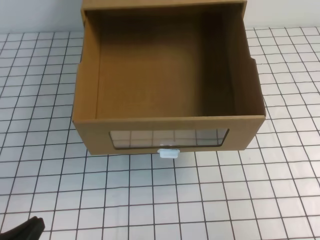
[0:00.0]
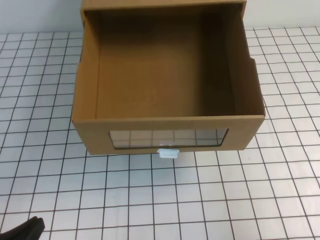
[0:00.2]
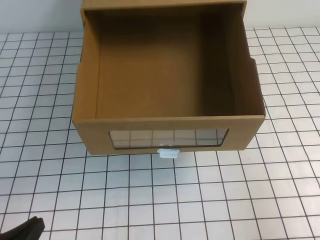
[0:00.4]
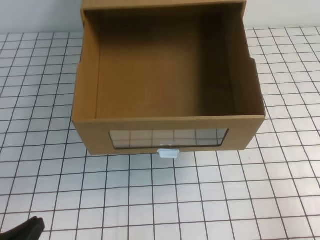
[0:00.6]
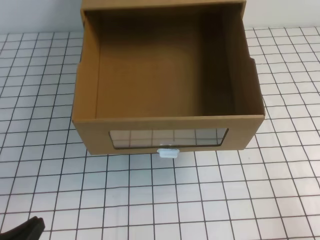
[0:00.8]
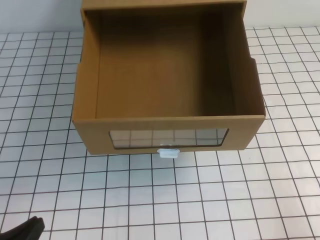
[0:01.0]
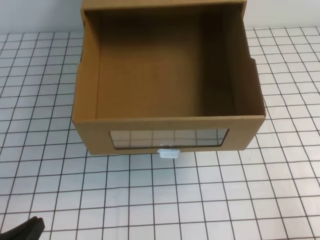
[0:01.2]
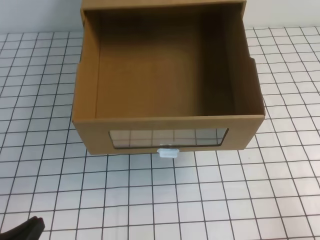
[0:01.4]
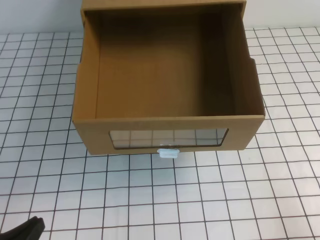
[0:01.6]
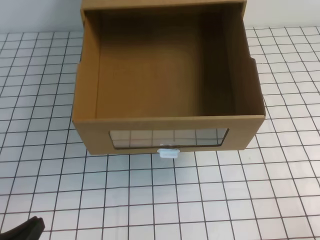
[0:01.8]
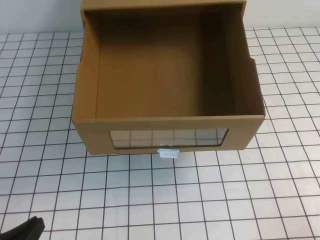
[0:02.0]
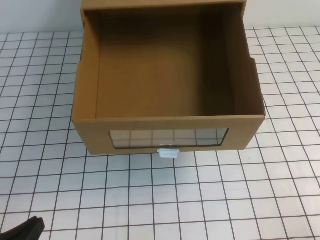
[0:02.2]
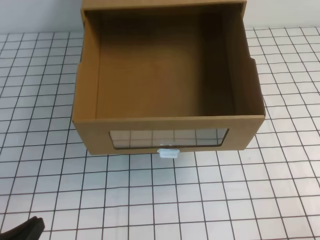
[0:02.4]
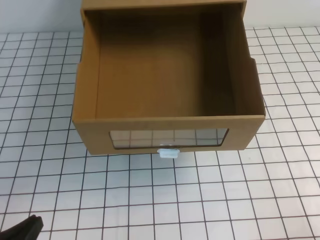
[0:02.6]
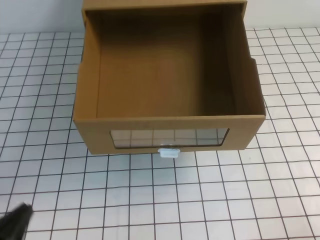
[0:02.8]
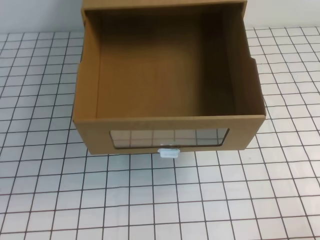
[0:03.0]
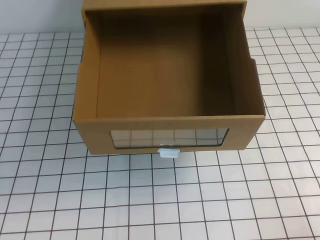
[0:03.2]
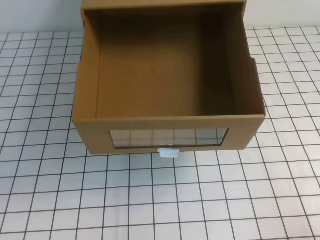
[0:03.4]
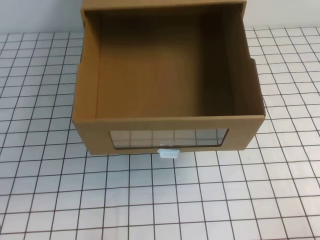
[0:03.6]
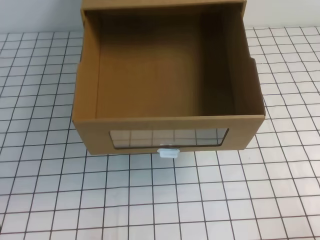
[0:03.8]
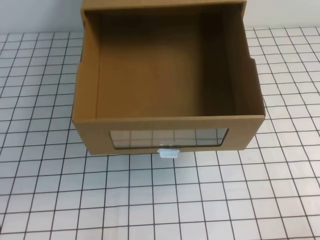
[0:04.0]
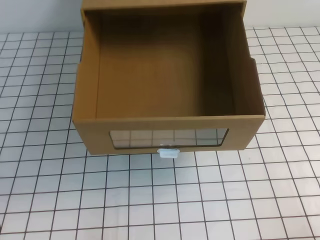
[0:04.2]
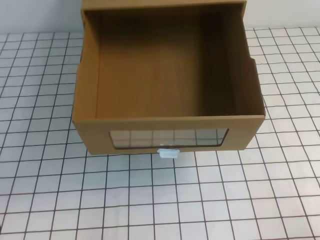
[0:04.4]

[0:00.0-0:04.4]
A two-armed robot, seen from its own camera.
Task of the whole recording: open the shoebox on the white tablecloth.
Step, 0:00.0 to 0:04.4: Open the shoe box.
0:00.0 to 0:01.4: The right gripper heads downward and backward, covering roughly 15 cm.

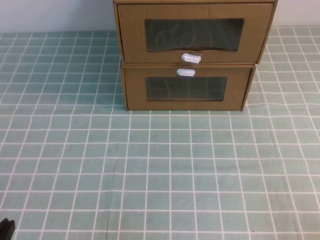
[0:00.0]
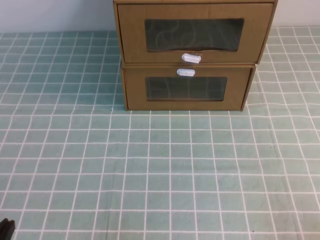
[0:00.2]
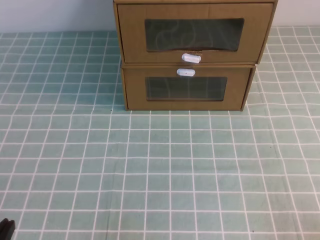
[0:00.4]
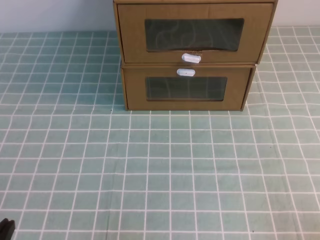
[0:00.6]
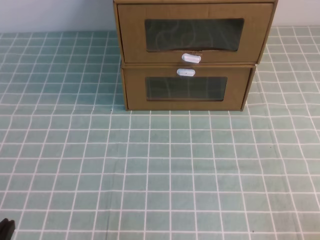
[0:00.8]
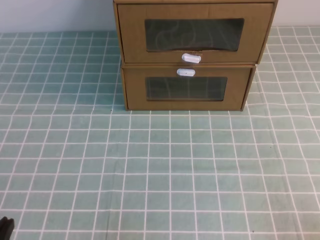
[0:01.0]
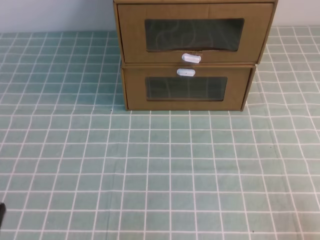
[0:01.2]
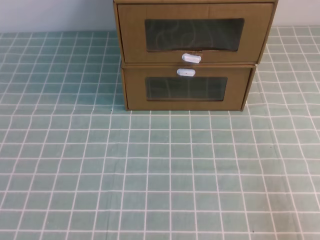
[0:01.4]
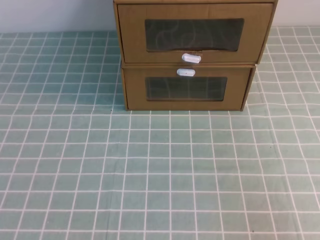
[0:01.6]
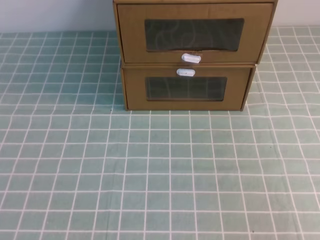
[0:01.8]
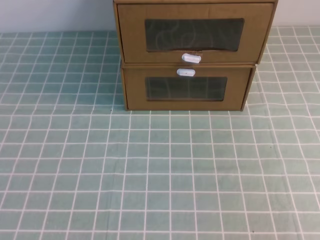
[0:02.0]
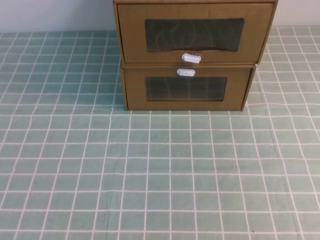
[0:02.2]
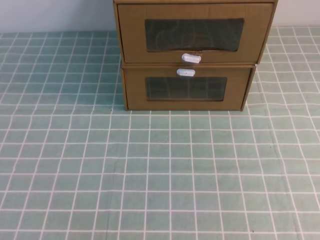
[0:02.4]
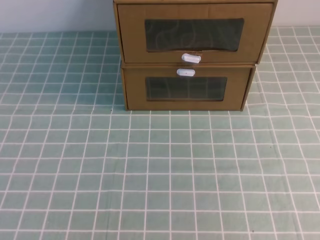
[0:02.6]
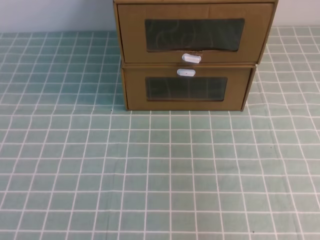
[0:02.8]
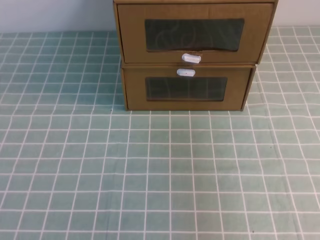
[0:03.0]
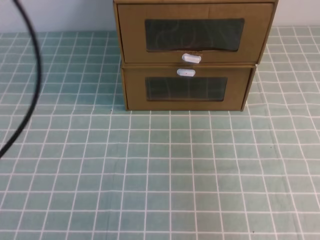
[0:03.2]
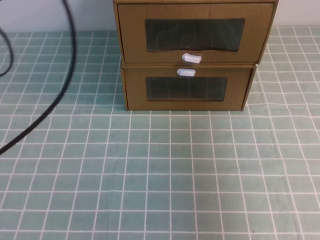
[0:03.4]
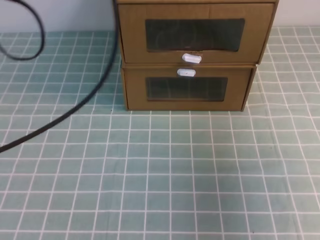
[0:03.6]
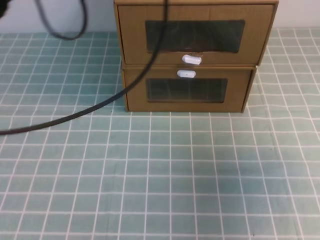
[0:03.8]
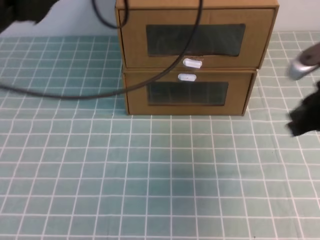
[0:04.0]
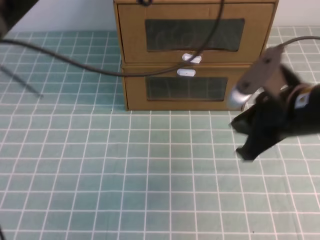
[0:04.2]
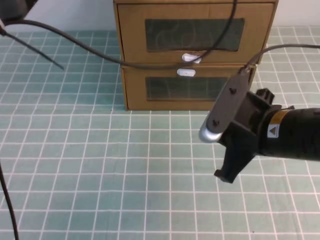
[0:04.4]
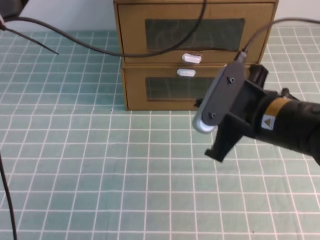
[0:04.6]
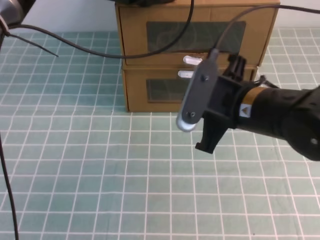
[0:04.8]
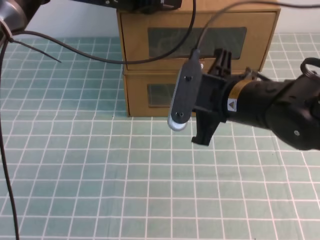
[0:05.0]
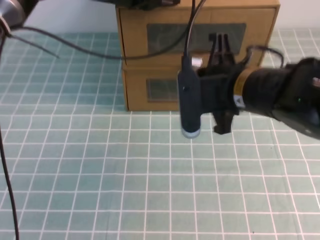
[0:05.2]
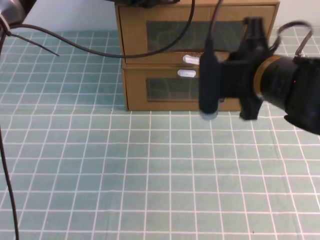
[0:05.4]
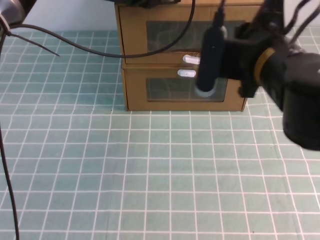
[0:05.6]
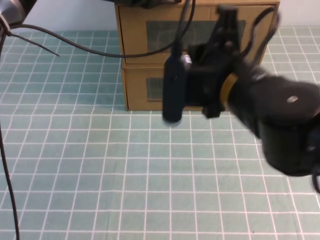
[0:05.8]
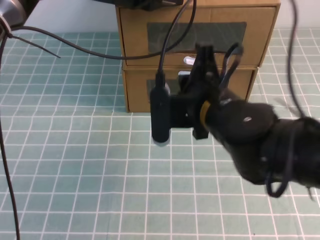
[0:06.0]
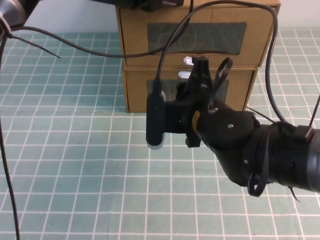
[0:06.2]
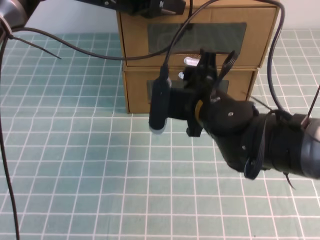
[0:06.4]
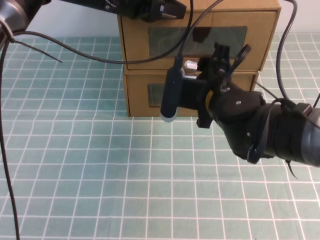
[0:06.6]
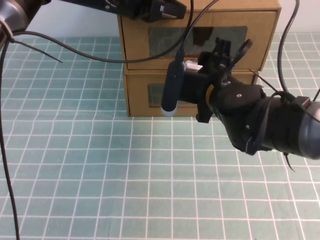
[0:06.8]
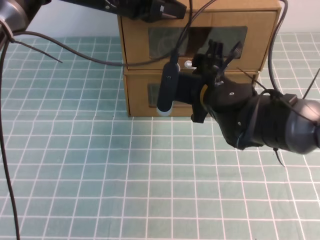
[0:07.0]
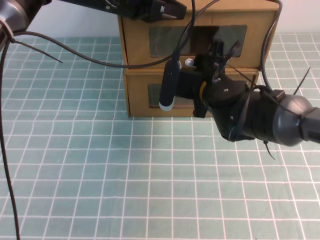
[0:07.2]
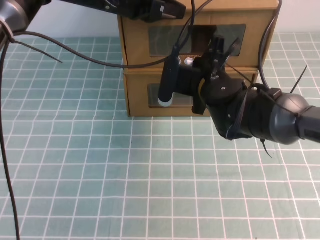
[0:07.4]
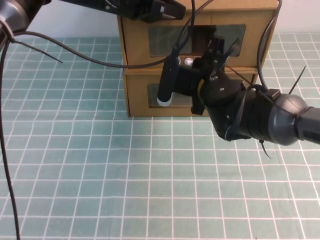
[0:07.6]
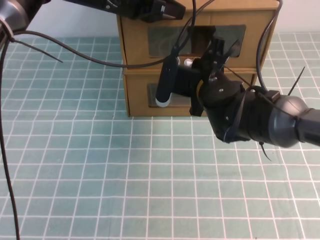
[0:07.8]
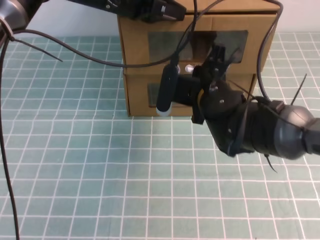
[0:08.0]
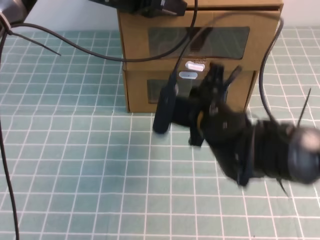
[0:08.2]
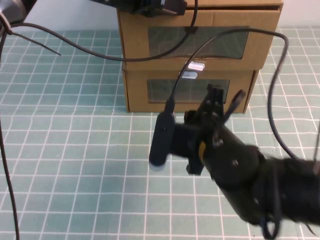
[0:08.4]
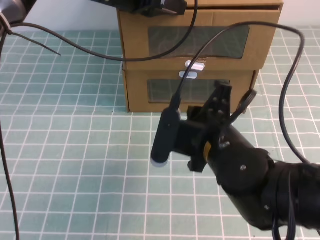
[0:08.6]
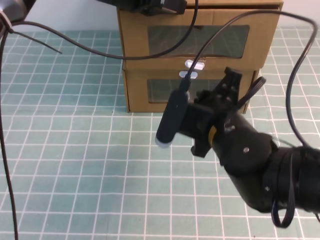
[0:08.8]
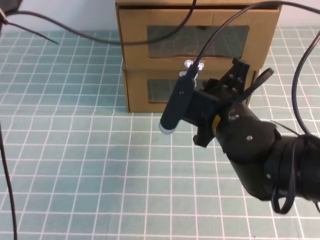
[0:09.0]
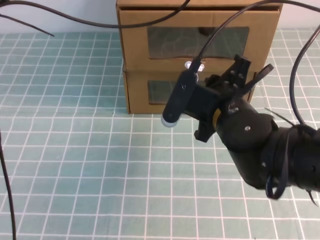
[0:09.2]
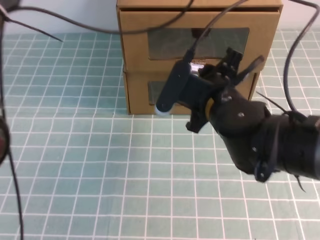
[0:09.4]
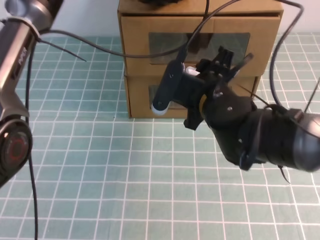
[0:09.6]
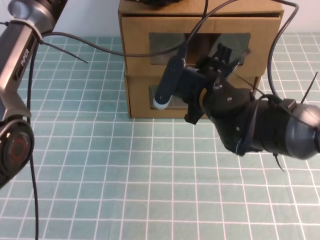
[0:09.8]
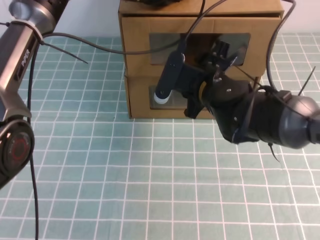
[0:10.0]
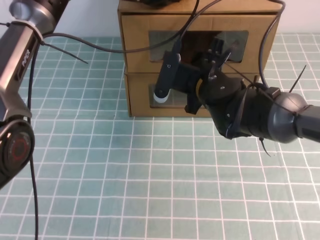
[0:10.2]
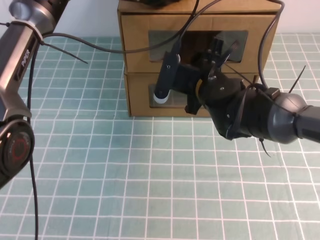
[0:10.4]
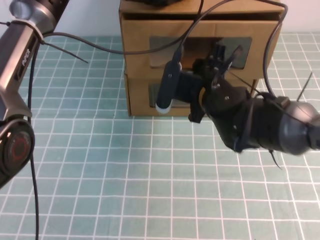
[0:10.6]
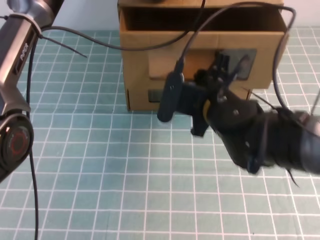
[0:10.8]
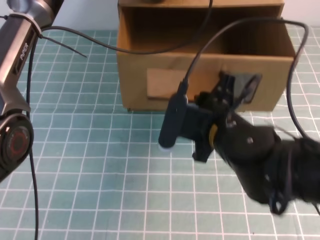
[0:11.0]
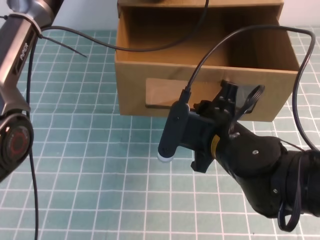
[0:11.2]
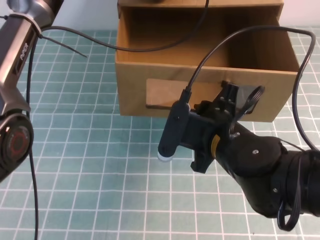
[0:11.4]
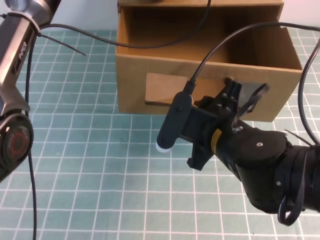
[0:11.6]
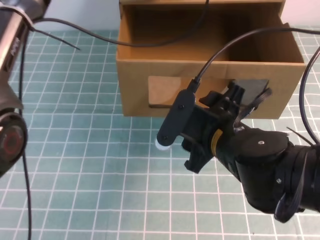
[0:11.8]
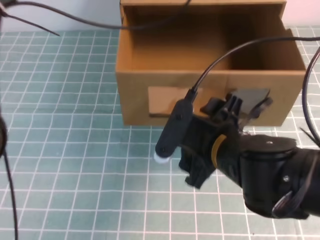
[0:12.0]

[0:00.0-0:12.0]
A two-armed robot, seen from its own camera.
Task of the whole recording: open the shoebox on the cyan tablecloth.
0:01.6 to 0:03.0: Both grippers move upward and forward, roughly 25 cm.
0:03.0 to 0:04.4: The right gripper travels downward, to the left and forward by approximately 25 cm, while the left gripper goes some 30 cm forward and to the right.
0:04.4 to 0:06.0: The left gripper goes about 10 cm downward and forward. The right gripper travels to the left by some 10 cm.
0:06.0 to 0:07.6: The right gripper goes roughly 10 cm forward and downward, and opens and closes again.
0:07.6 to 0:09.0: The right gripper goes about 10 cm backward.
0:09.0 to 0:10.4: The left gripper ends up approximately 5 cm from where it was; the right gripper travels forward by approximately 10 cm.
0:10.4 to 0:12.0: The left gripper travels upward by roughly 5 cm. Meanwhile the right gripper travels backward by some 15 cm, and opens its fingers.

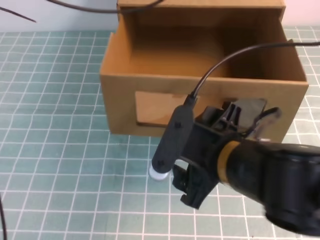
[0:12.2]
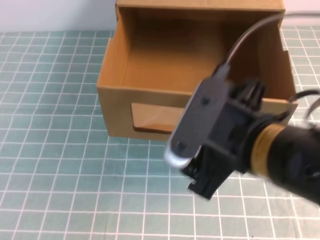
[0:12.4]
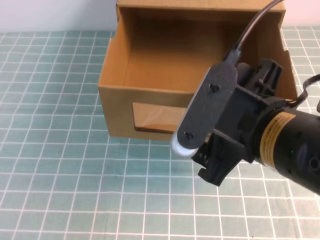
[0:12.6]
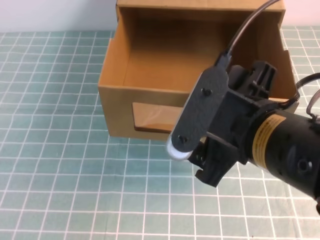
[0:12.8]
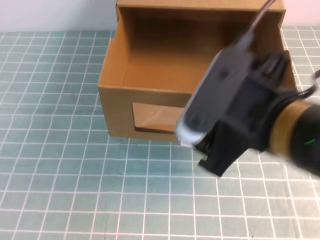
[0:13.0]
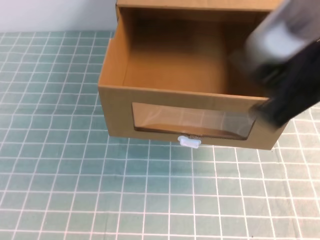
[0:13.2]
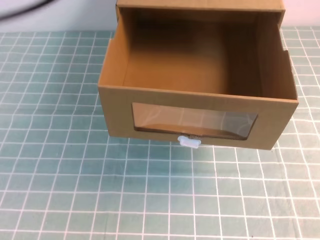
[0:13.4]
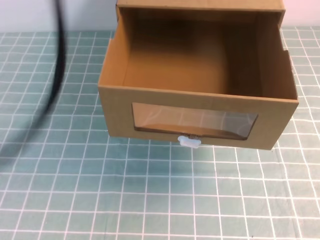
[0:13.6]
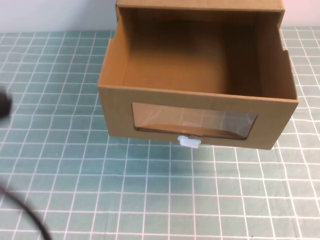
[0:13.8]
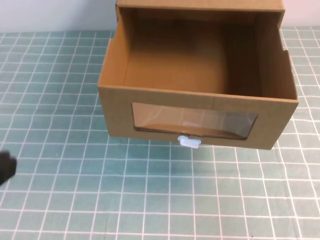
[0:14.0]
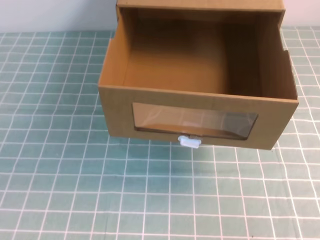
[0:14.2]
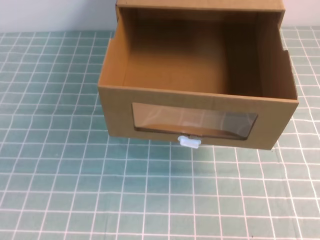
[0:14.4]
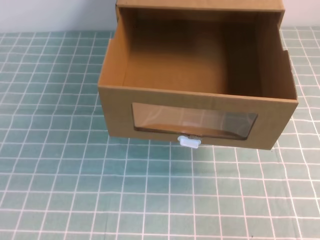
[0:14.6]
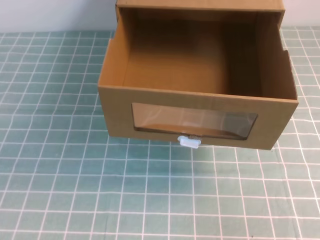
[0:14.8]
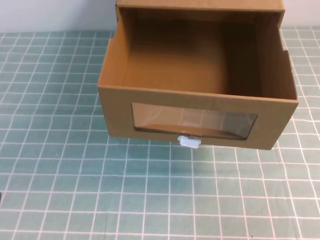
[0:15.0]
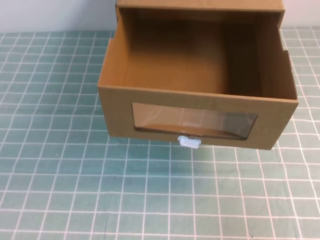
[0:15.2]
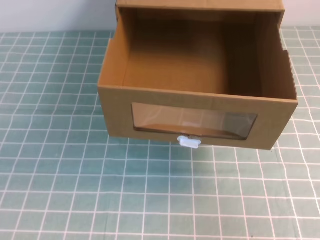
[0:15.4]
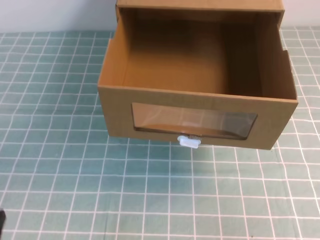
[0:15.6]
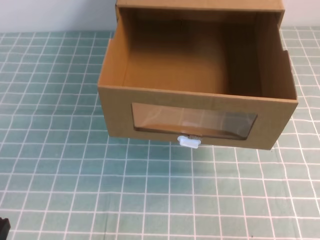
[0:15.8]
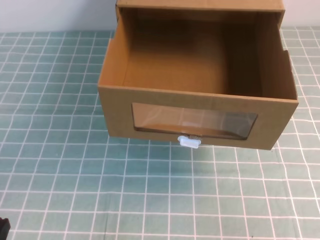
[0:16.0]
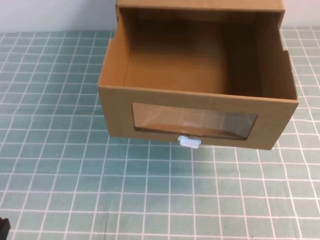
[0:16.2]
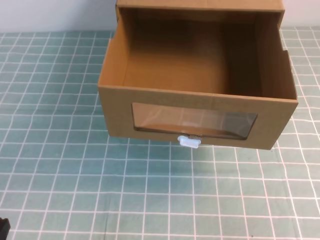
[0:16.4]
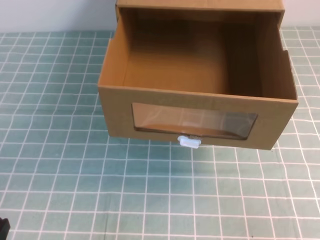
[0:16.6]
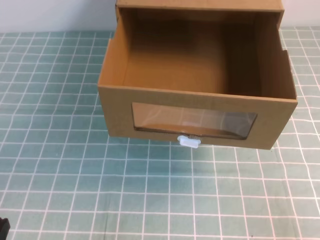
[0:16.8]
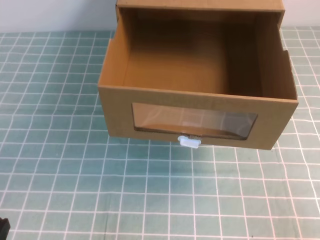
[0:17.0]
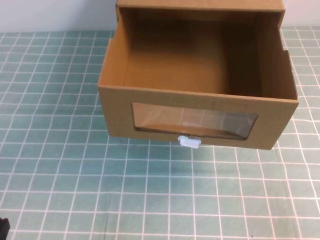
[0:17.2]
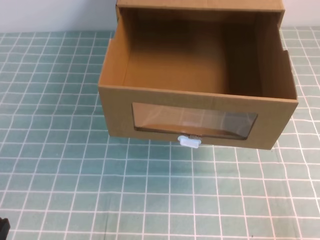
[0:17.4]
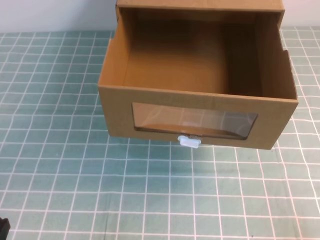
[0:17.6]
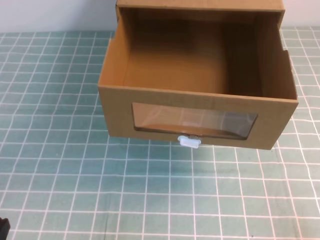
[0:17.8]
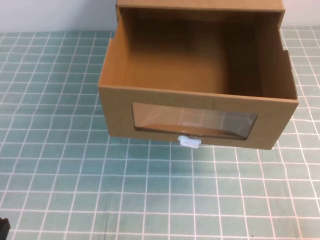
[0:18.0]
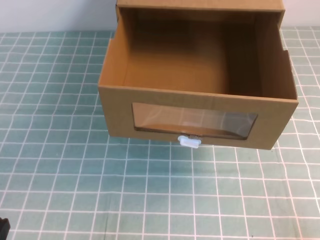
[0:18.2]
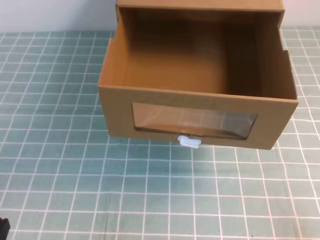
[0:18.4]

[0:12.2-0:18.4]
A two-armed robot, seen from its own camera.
Task of the whole recording: open the shoebox on the cyan tablecloth.
Step, 0:12.2 to 0:18.4: Open the shoe box.
0:12.2 to 0:13.8: The left gripper is displaced backward by approximately 30 cm. Meanwhile the right gripper travels to the right, upward and backward by some 25 cm, and closes up.
0:13.8 to 0:15.4: The two grippers go approximately 20 cm downward.
